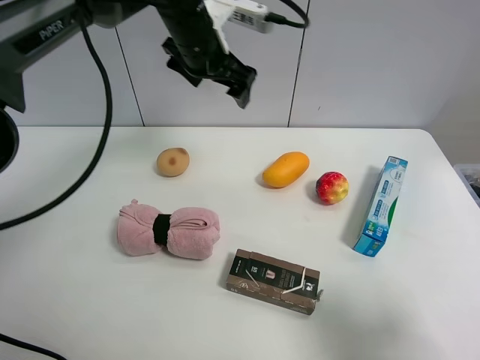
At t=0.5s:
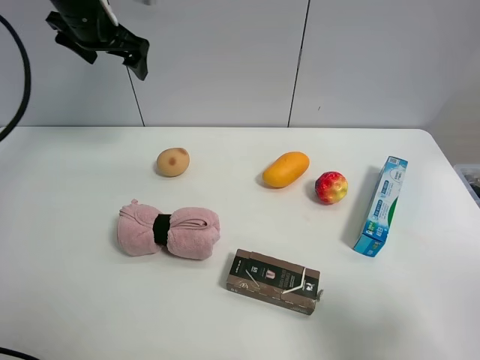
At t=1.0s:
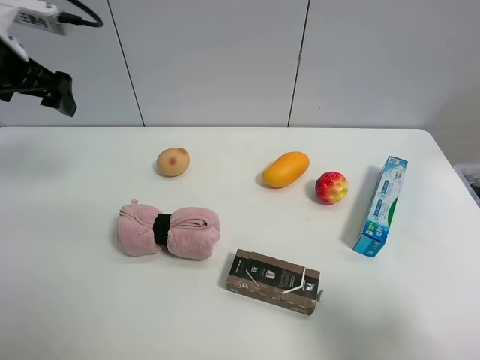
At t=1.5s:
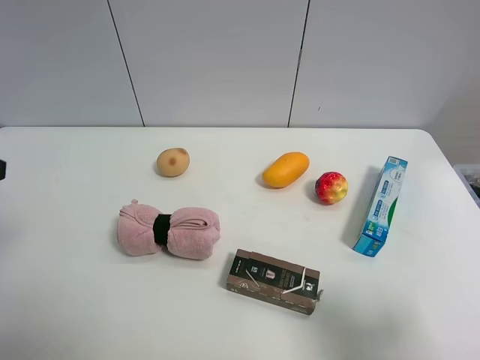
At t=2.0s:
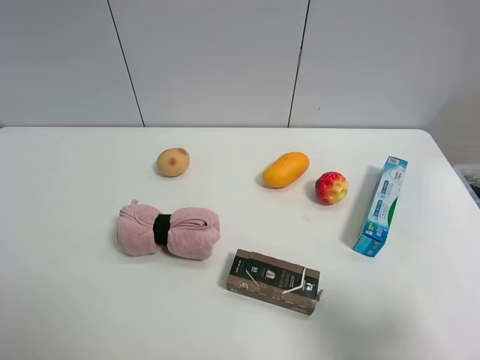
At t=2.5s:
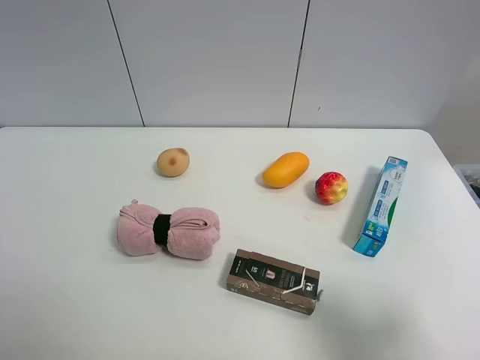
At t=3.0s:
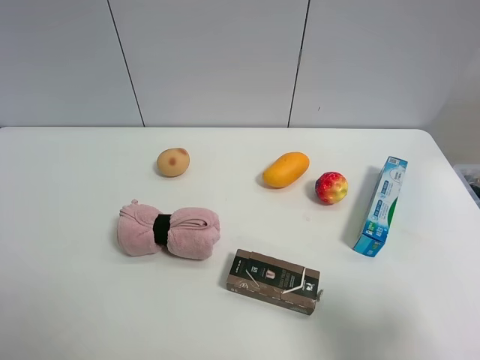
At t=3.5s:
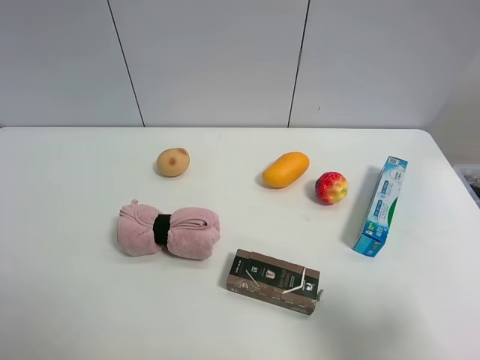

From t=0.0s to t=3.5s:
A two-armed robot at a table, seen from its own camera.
Task of the whole recording: the gripper move the object.
From t=0.0s to t=2.0s: The left gripper is displaced backward and to the left by some 50 cm.

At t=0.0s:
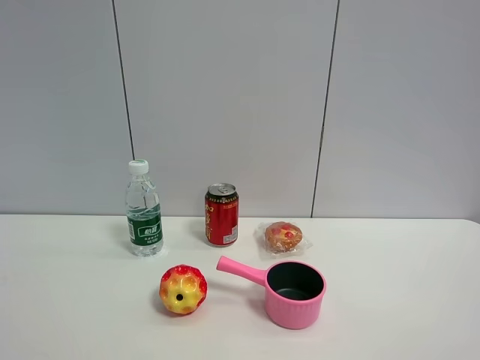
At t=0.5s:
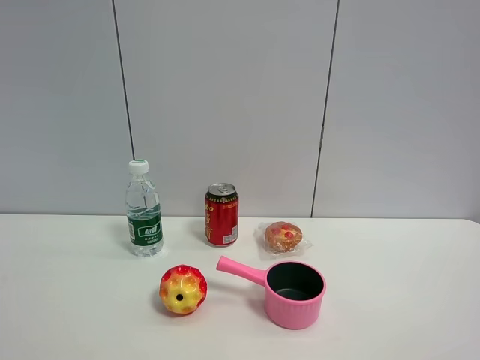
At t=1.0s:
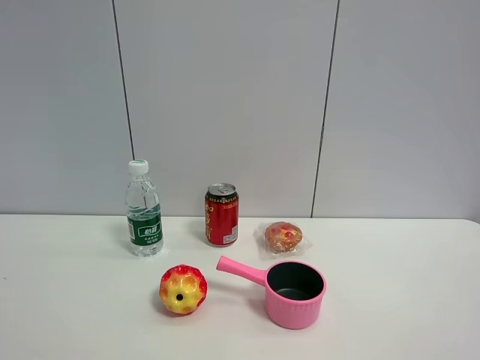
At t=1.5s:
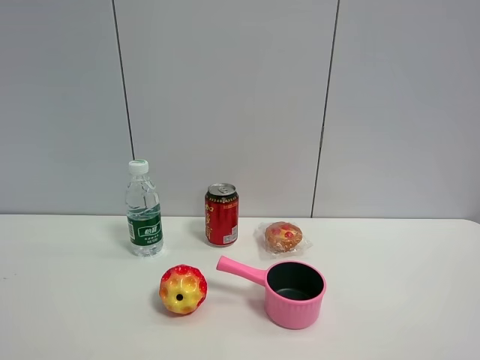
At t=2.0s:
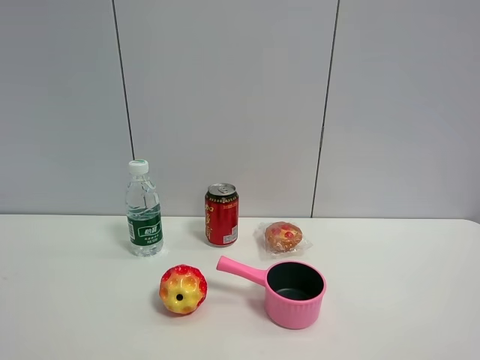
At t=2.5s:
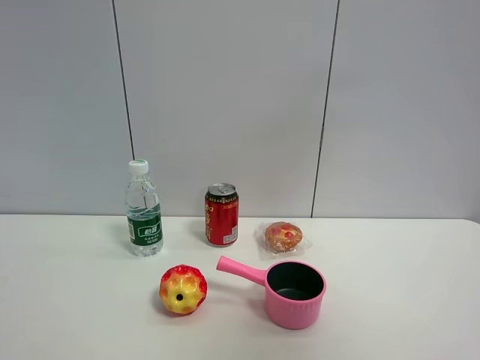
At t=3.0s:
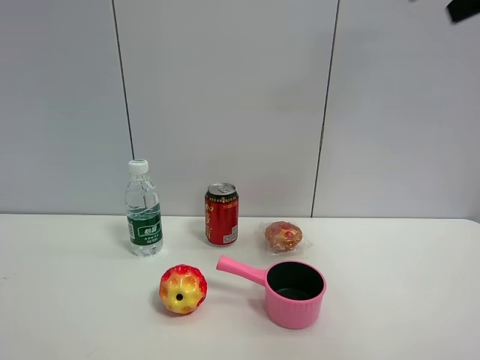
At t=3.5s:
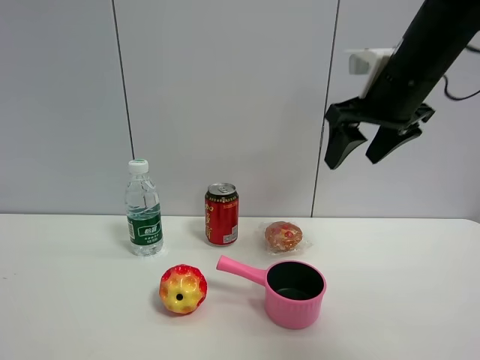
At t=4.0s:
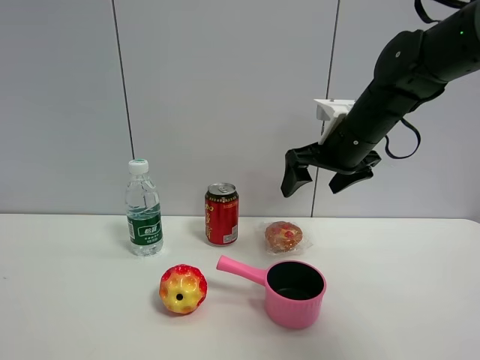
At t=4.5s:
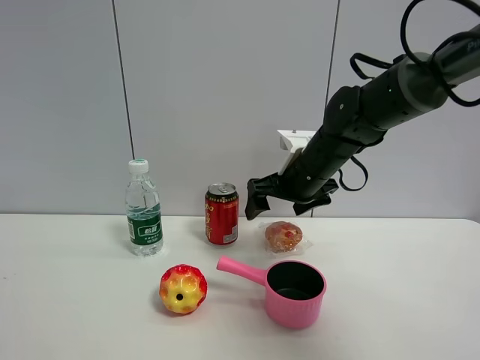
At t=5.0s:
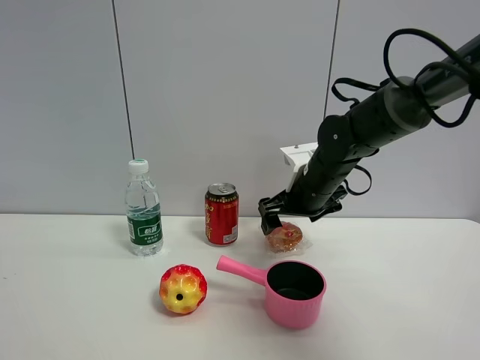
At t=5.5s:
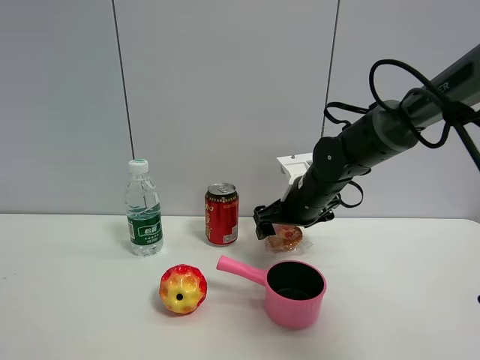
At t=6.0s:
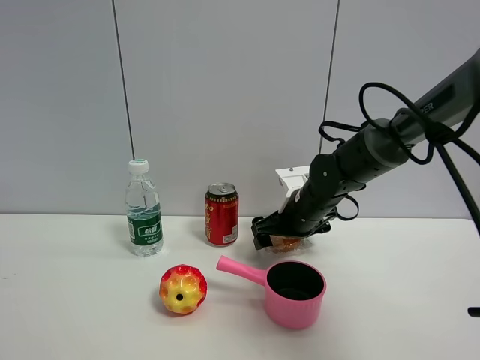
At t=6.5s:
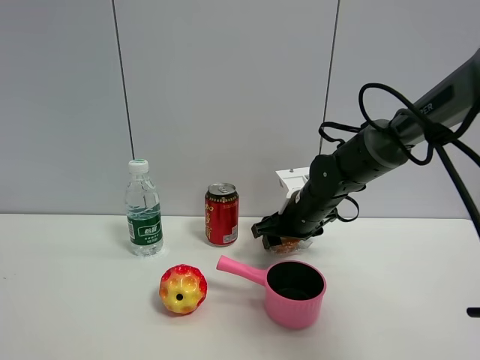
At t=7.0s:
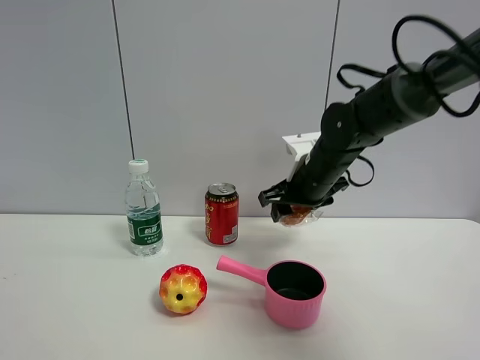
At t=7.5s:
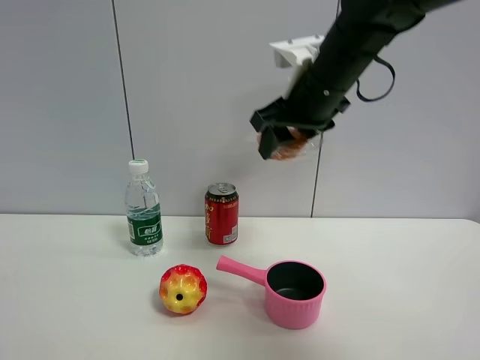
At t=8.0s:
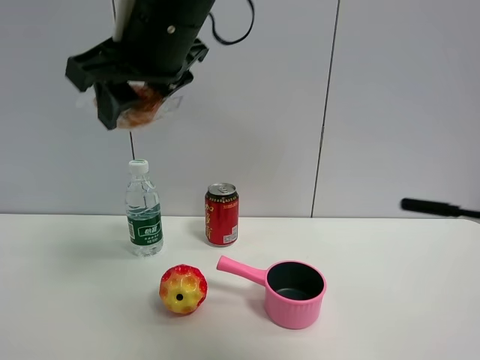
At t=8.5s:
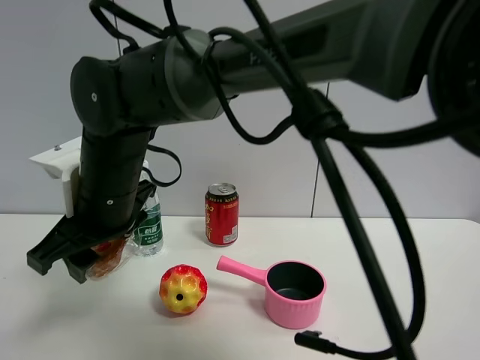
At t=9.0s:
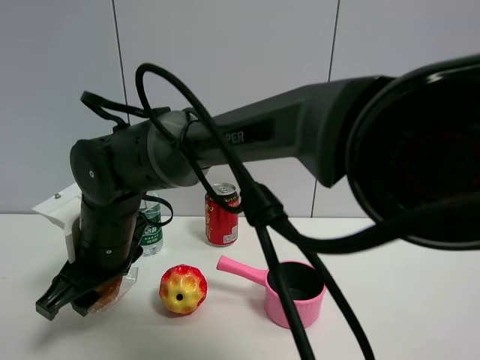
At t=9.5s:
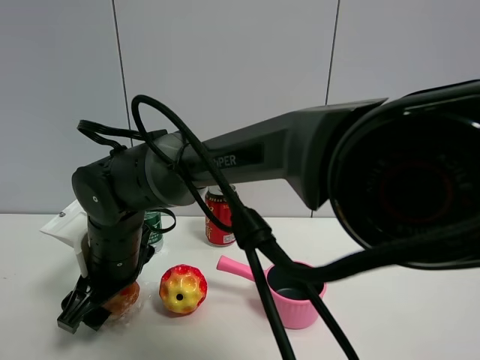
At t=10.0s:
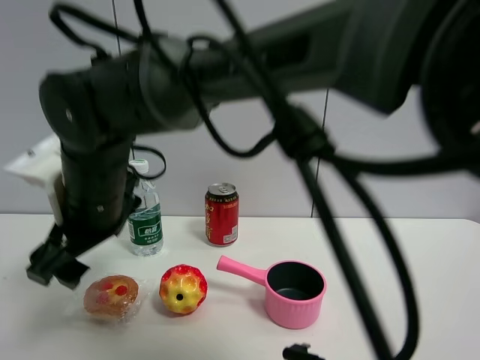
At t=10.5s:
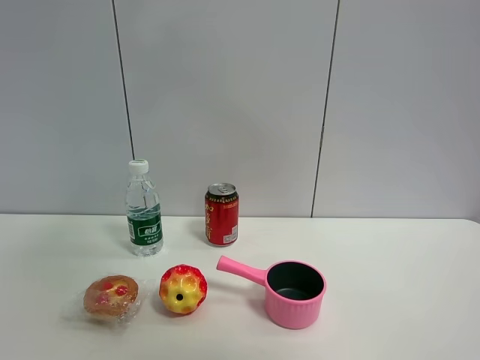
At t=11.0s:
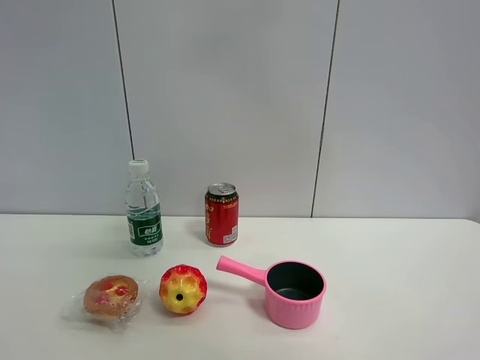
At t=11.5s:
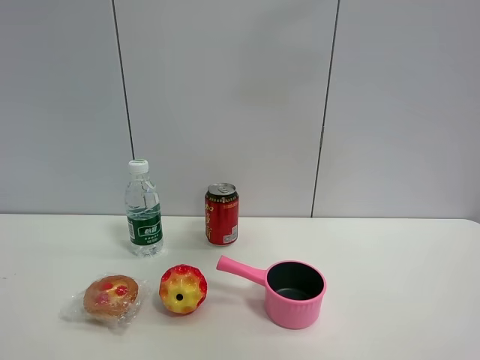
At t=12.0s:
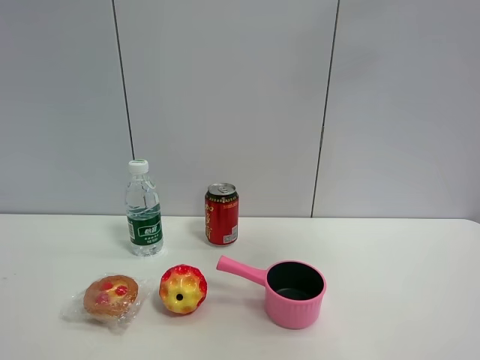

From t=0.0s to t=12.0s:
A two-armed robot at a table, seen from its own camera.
Task of the whole recording: the gripper move the object.
Step, from t=0.0s to t=6.5s: Grasp the egg tart with the right gripper.
Step, from t=7.0s to t=9.5s: Place the egg tart on the table with the right gripper.
From t=2.0s to t=4.0s: The right gripper shifts roughly 40 cm forward, and opens up.
From t=4.0s to t=6.0s: The right gripper moves downward, some 15 cm.
From t=6.0s to t=8.0s: The right gripper shifts roughly 35 cm upward, to the left and backward, and closes up.
From t=8.0s to t=10.0s: The right gripper moves downward and to the left, about 15 cm, and opens its fingers.
From t=10.0s to t=12.0s: The right gripper travels to the right and upward by approximately 50 cm.

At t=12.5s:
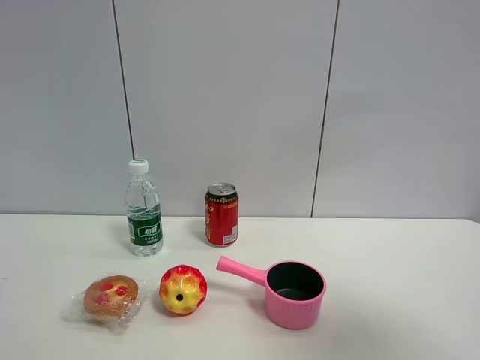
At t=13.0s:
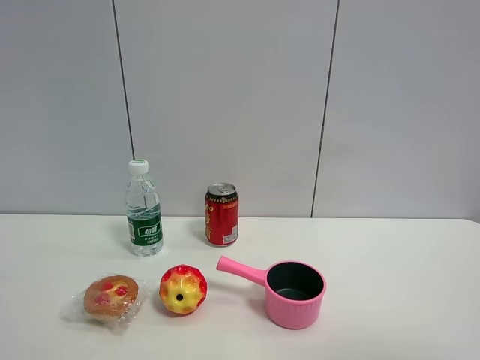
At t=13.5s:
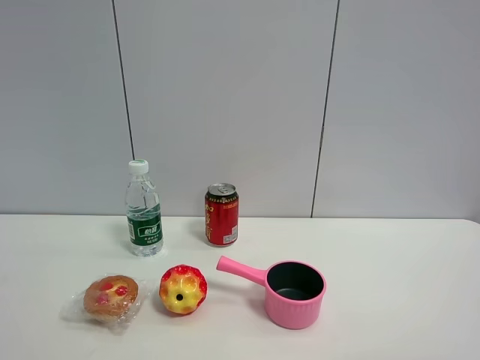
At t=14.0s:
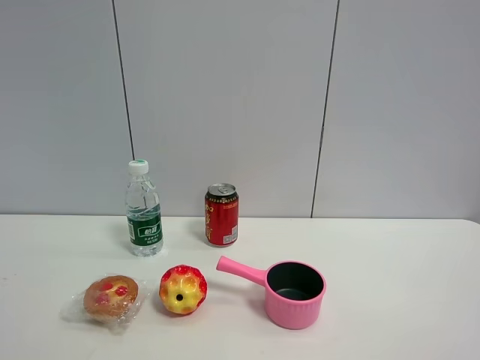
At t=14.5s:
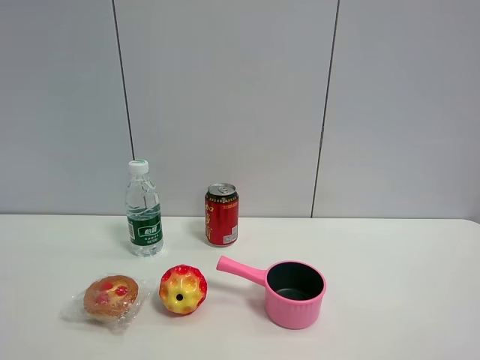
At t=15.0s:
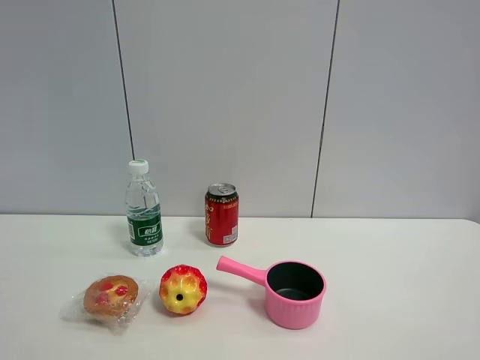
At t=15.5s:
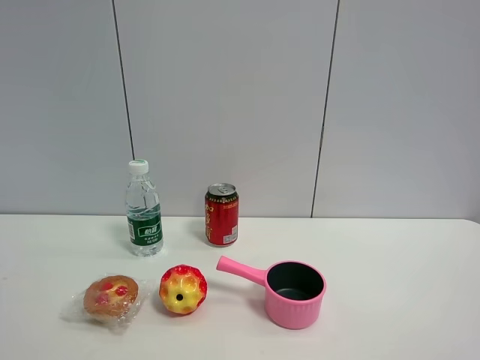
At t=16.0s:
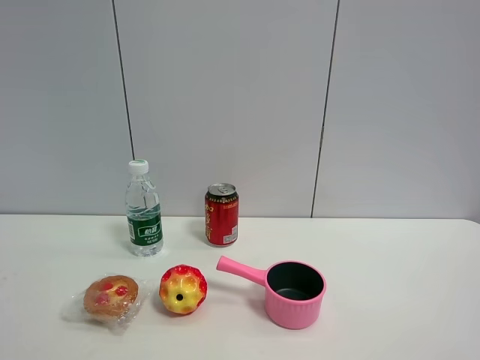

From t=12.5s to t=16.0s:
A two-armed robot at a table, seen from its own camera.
Task of the whole recording: the gripper move the object.
From t=12.5s to t=14.5s: The right gripper goes roughly 15 cm downward and backward.
From t=14.5s to t=16.0s: Both grippers stay put.

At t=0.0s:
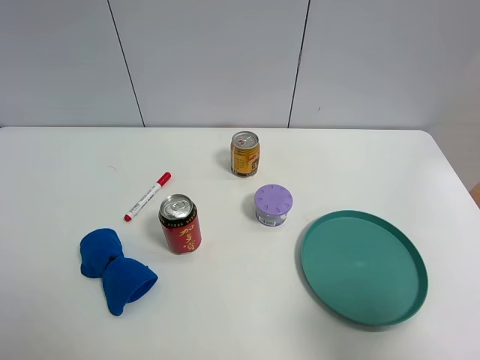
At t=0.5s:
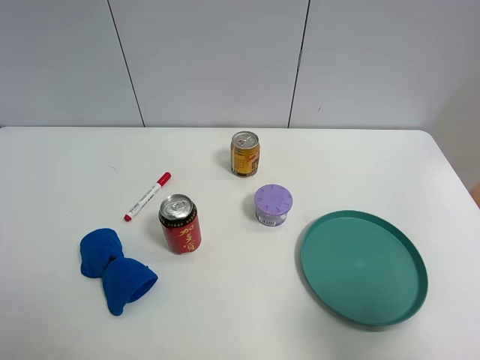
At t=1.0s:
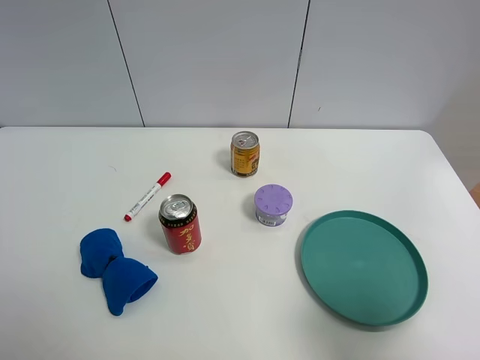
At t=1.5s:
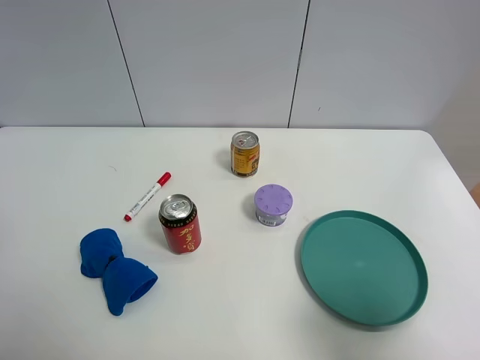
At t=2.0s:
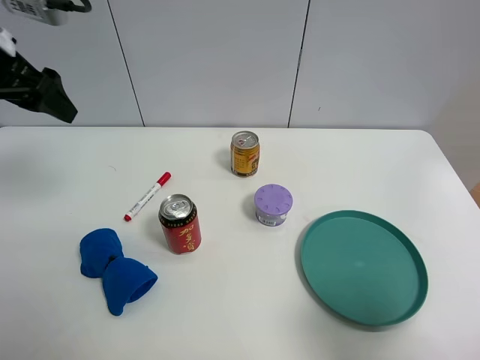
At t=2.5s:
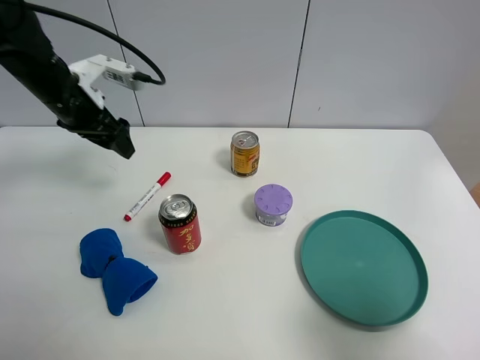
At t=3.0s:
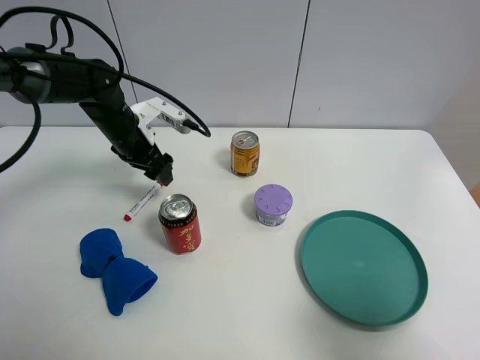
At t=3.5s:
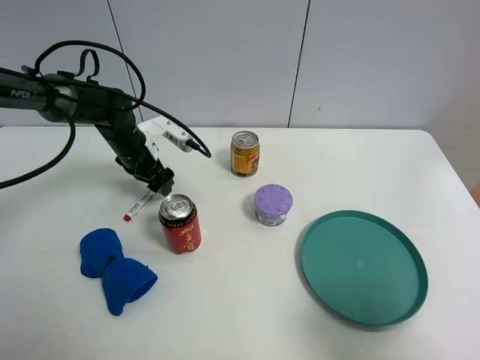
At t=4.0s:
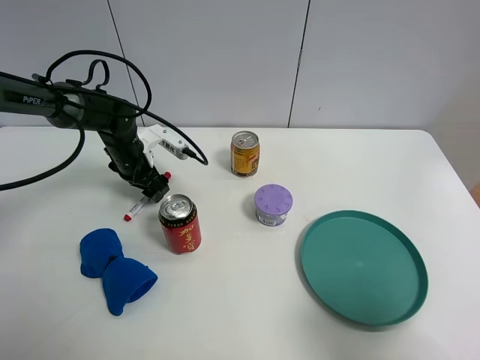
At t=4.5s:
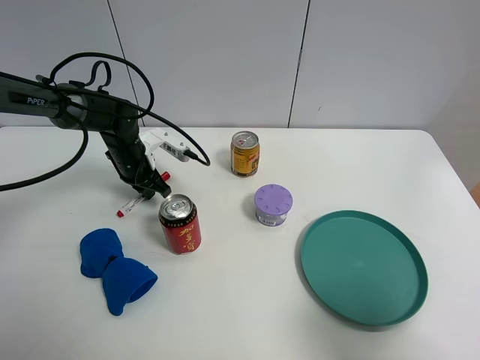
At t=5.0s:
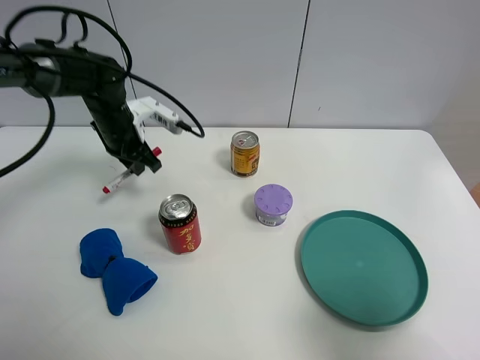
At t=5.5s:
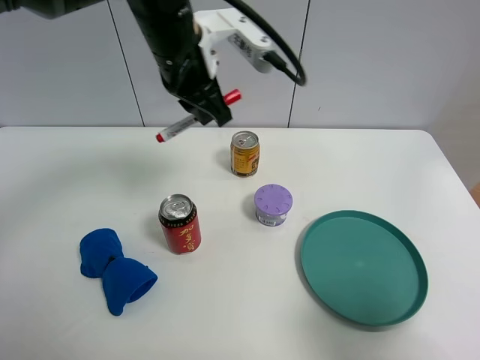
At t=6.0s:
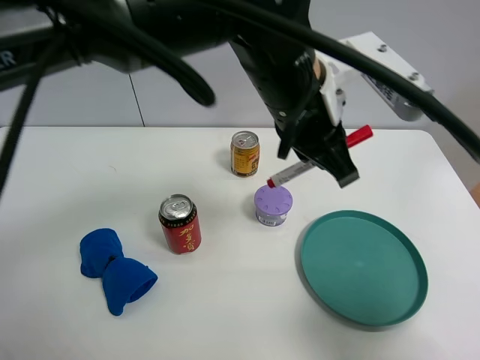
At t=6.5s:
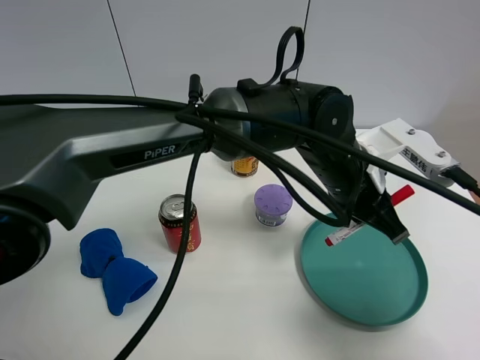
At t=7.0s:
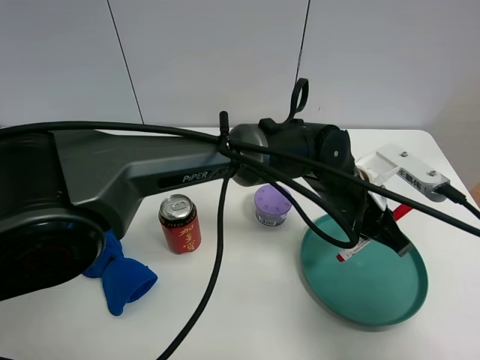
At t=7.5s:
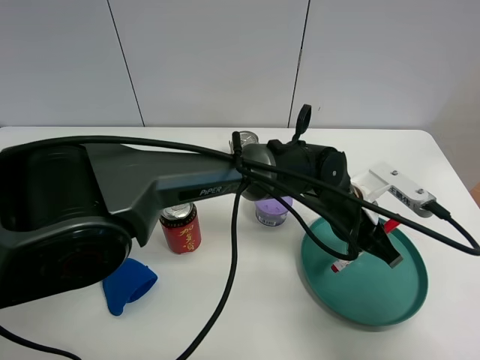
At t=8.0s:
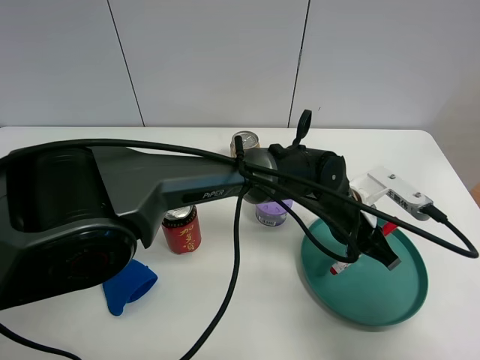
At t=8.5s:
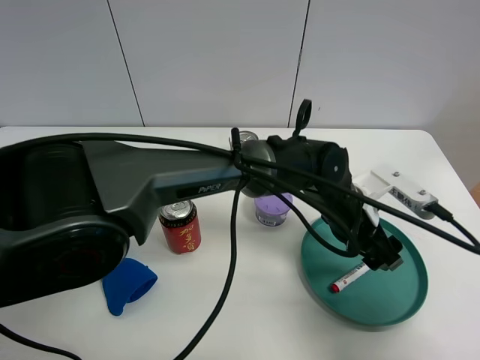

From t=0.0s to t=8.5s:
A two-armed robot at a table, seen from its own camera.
Task of the whole recording: the gripper move the object.
Step, from t=0.0s to t=4.5s: Grasp the red marker pen with the left gripper.
Step, from t=5.0s to t=8.0s: Place the red marker pen into the green plate with the left gripper.
From t=0.0s to t=2.0s: The left gripper shifts about 30 cm forward.
From t=2.0s to t=4.0s: The left gripper travels downward by roughly 25 cm.
From t=4.0s to t=6.5s: The left gripper heads to the right and backward, covering approximately 35 cm, and closes its fingers.
From t=6.5s to t=8.5s: The left gripper is displaced downward by some 5 cm, and opens its fingers.
